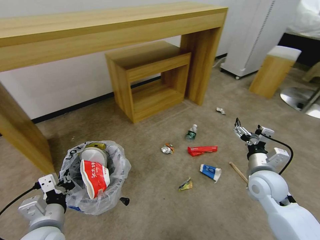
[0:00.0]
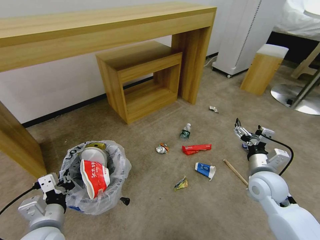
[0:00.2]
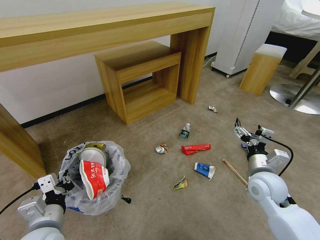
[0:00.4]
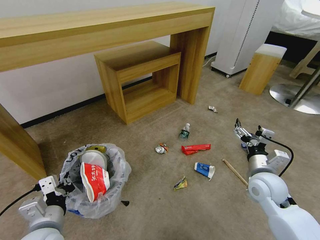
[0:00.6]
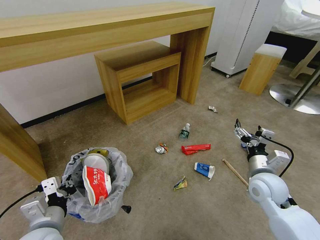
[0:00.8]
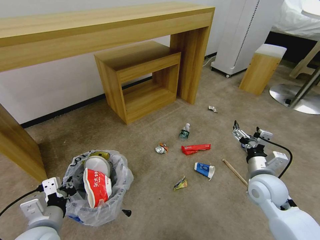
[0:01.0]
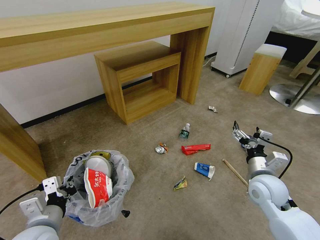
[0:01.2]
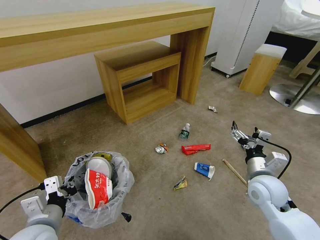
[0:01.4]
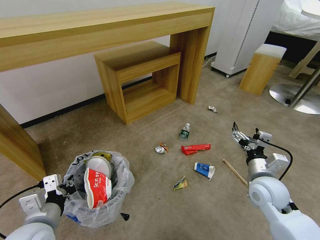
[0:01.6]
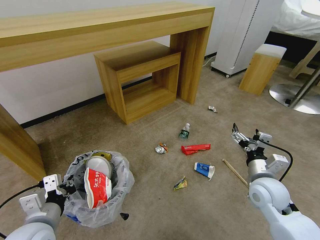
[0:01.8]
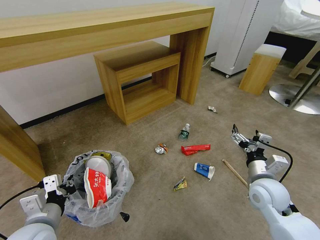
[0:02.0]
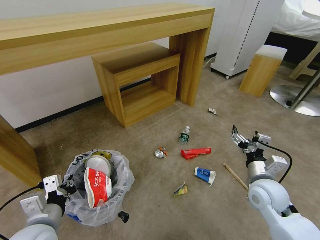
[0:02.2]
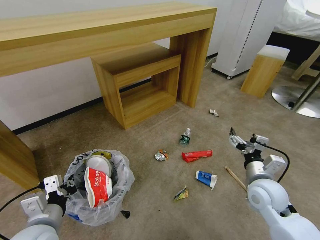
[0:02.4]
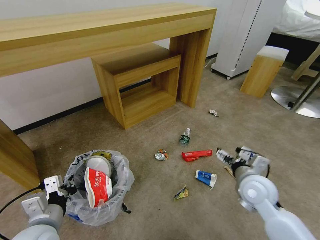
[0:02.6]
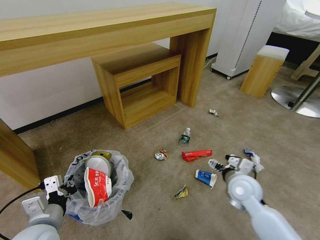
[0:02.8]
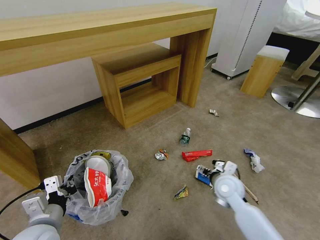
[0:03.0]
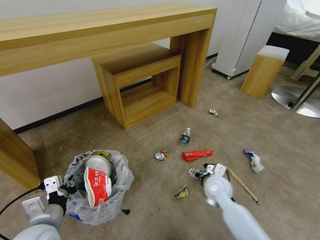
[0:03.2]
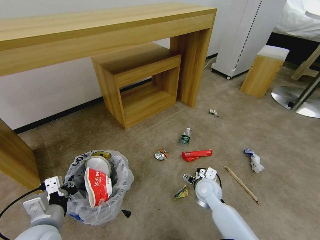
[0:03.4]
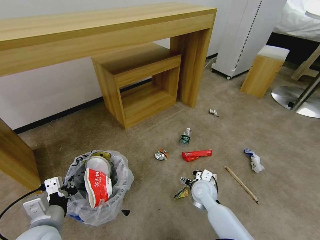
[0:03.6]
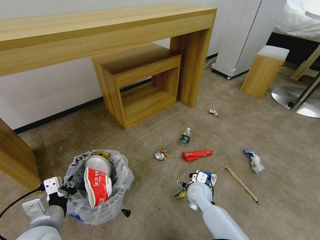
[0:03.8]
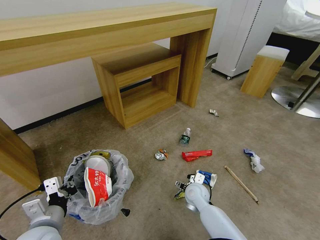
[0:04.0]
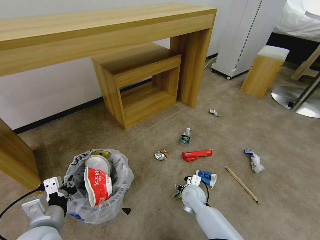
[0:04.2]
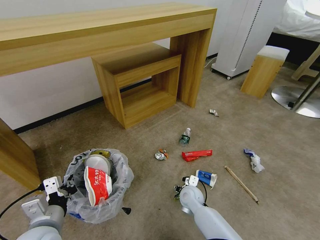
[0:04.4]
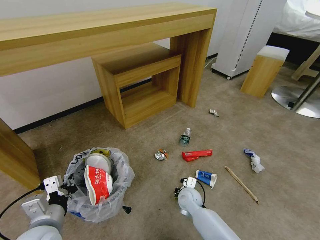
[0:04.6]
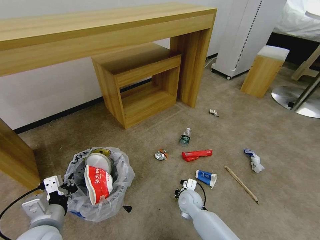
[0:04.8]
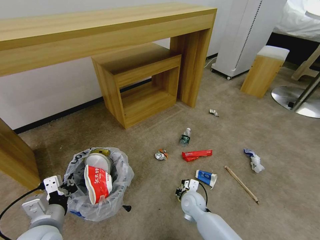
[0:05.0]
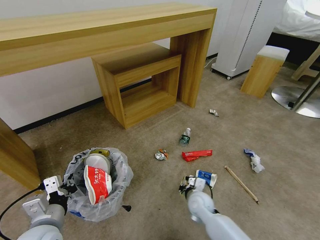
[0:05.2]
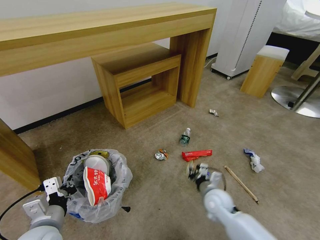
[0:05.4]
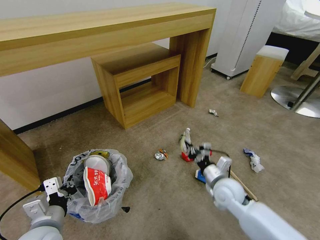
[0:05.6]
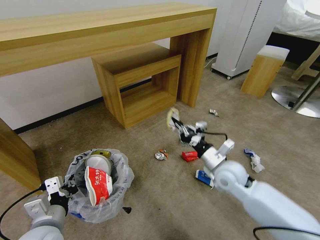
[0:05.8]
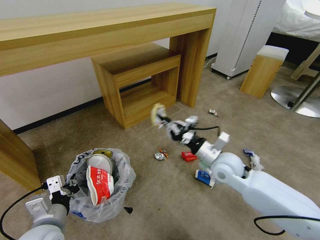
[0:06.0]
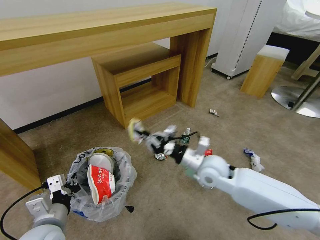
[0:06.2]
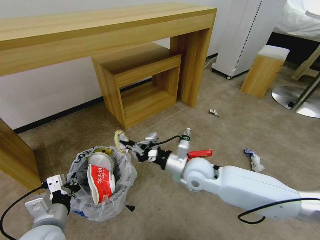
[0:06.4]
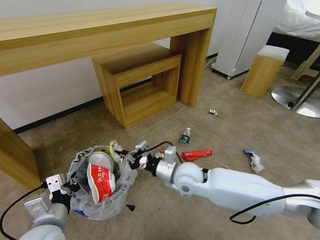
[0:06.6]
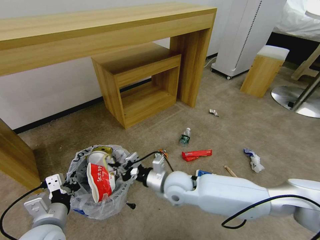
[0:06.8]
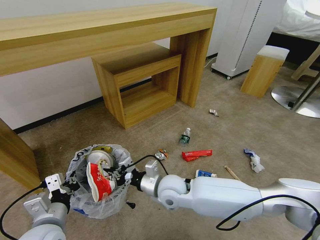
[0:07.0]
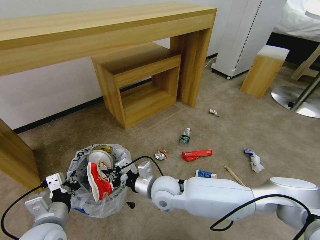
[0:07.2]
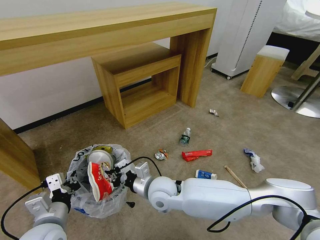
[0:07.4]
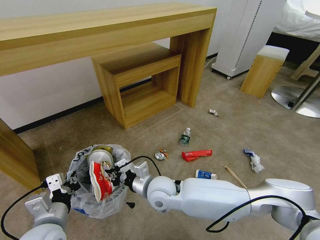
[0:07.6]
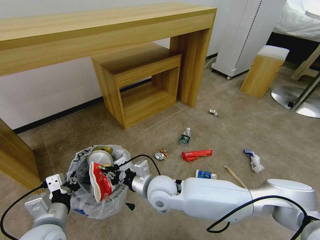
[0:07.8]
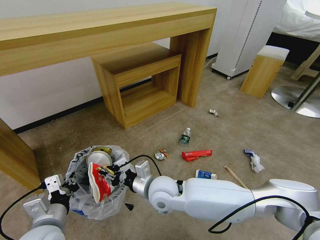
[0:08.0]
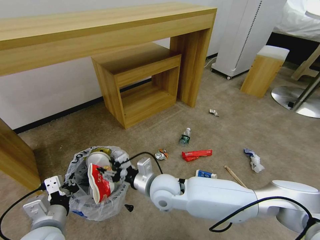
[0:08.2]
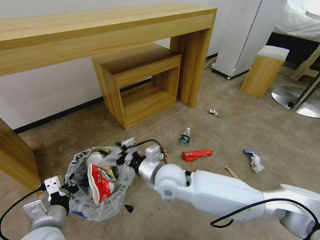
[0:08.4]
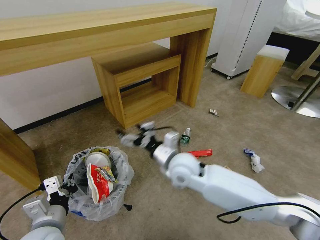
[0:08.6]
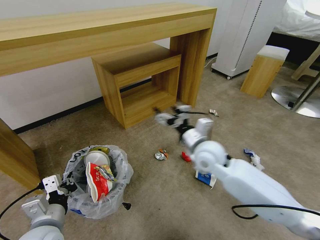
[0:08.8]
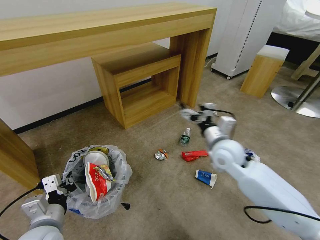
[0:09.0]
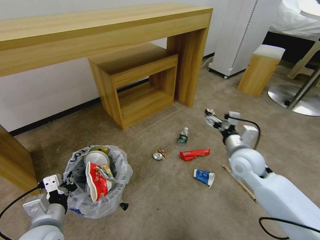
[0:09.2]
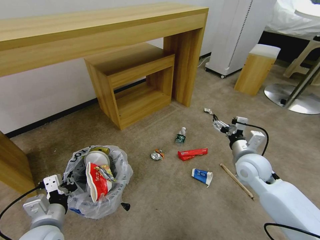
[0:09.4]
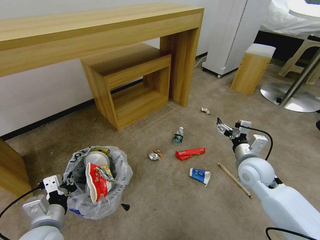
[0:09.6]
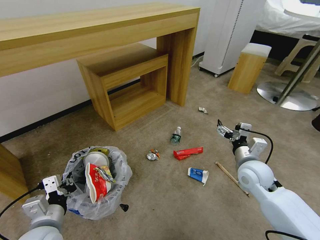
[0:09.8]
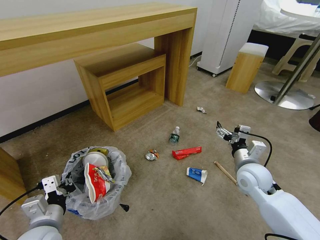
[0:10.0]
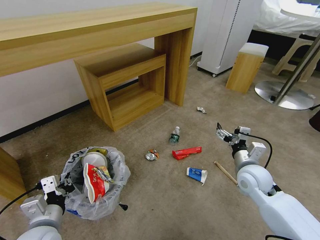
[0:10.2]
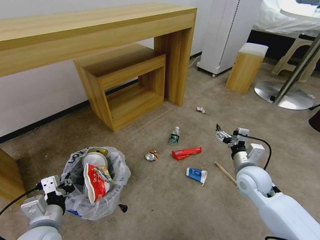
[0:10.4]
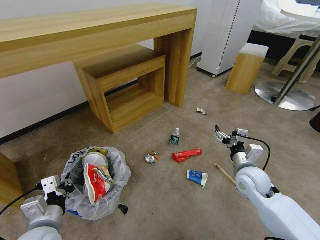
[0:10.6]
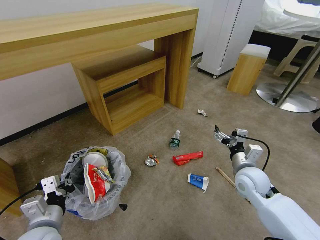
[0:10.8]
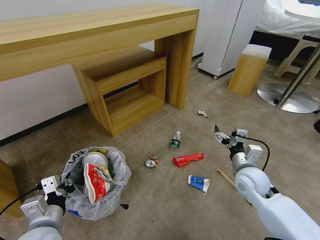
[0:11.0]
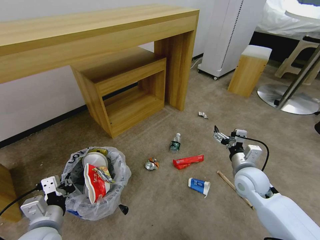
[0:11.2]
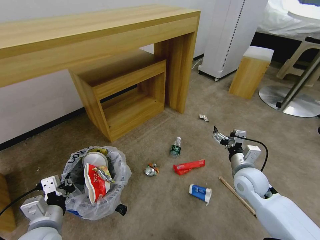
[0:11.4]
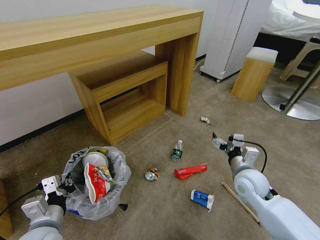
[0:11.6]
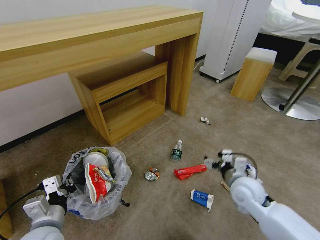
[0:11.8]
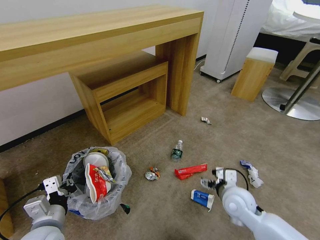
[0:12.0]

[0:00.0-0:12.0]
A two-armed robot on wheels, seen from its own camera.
Task of the whole recording: Pick up the trash bin and place the garbage on the floor into it.
0:01.6 to 0:03.0: The right gripper is displaced to the left and downward by some 10 cm.
0:03.0 to 0:04.4: The right gripper travels downward and to the left by approximately 15 cm, and closes.
0:04.4 to 0:06.0: The right gripper shifts roughly 20 cm upward, and closes up.
0:06.0 to 0:07.6: The right gripper shifts roughly 20 cm to the left.
0:07.6 to 0:09.0: The right gripper moves to the right and upward, some 25 cm, and opens.
0:09.0 to 0:10.4: The right gripper goes roughly 10 cm to the right, downward and backward.
0:10.4 to 0:12.0: The right gripper shifts approximately 5 cm to the left.

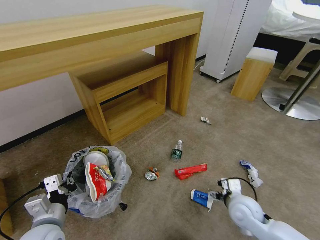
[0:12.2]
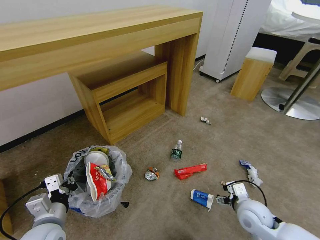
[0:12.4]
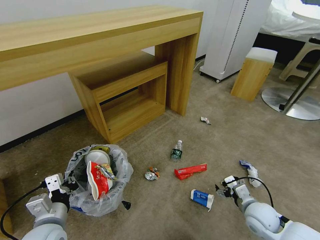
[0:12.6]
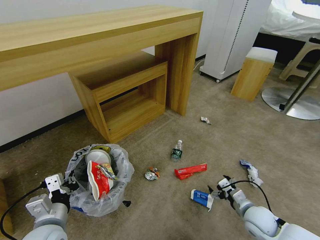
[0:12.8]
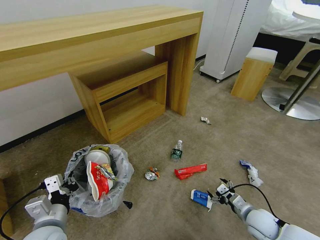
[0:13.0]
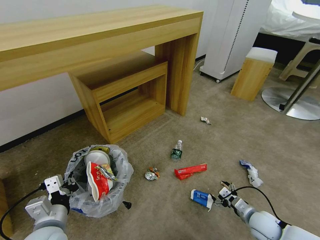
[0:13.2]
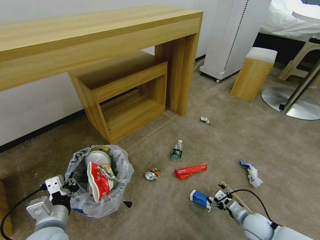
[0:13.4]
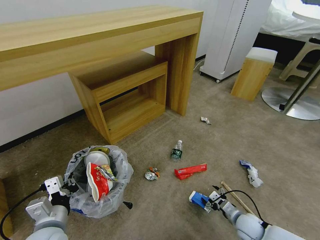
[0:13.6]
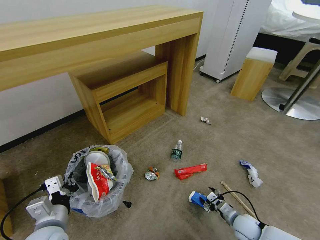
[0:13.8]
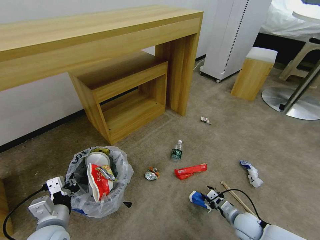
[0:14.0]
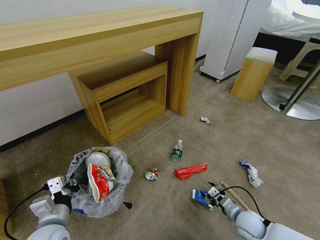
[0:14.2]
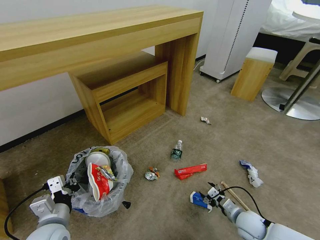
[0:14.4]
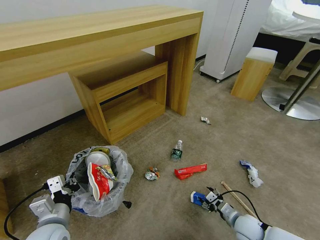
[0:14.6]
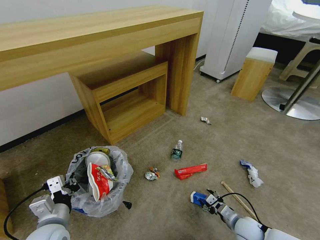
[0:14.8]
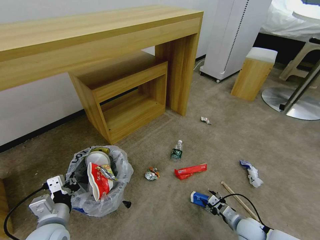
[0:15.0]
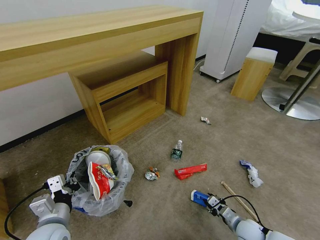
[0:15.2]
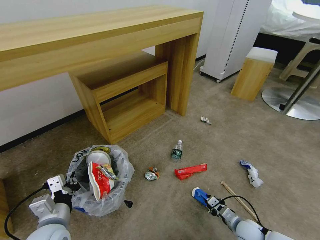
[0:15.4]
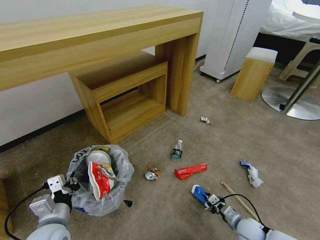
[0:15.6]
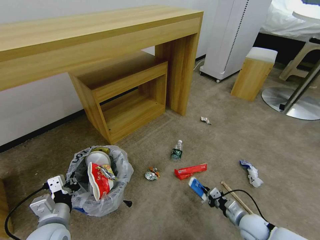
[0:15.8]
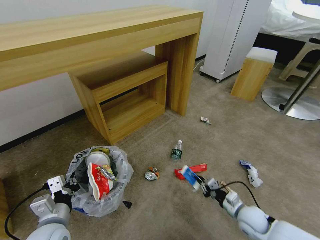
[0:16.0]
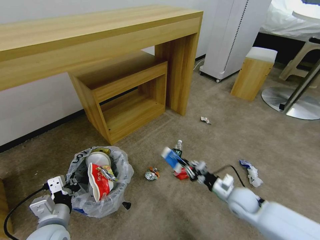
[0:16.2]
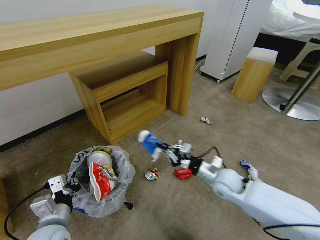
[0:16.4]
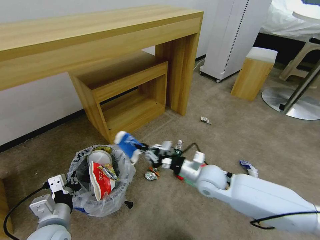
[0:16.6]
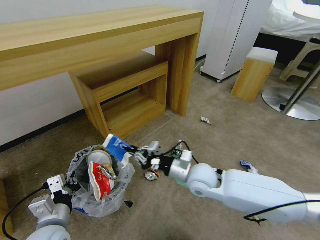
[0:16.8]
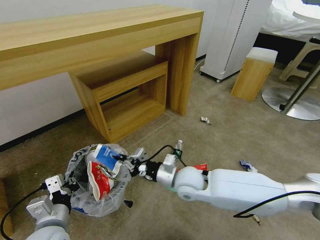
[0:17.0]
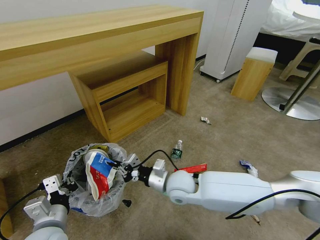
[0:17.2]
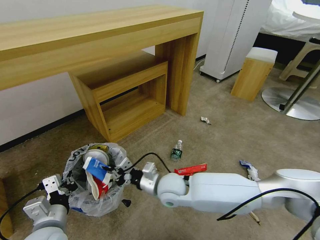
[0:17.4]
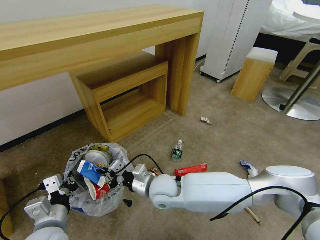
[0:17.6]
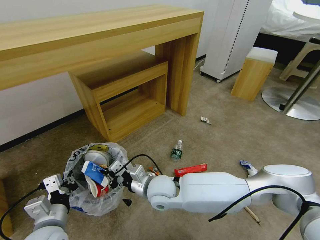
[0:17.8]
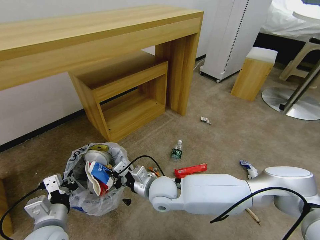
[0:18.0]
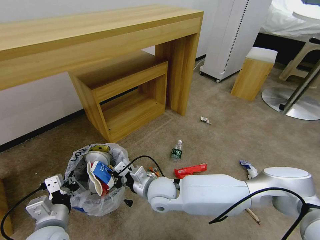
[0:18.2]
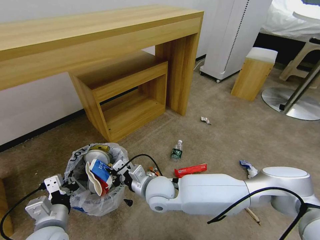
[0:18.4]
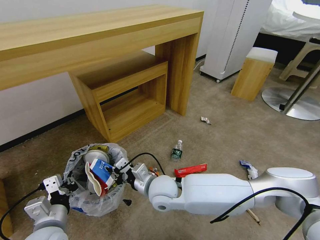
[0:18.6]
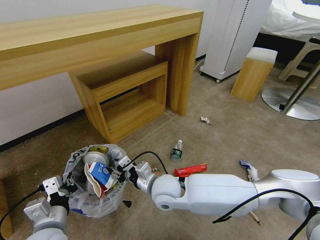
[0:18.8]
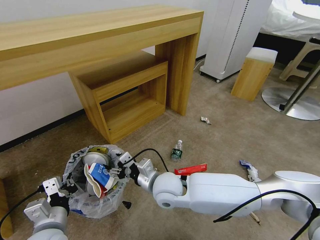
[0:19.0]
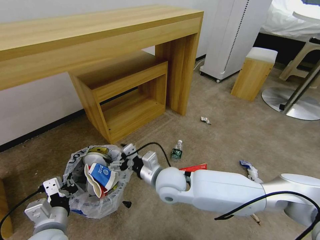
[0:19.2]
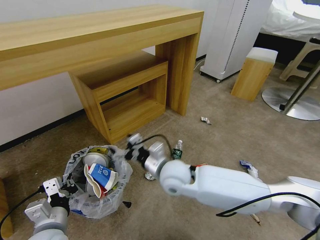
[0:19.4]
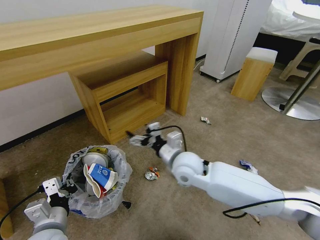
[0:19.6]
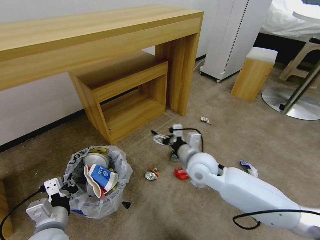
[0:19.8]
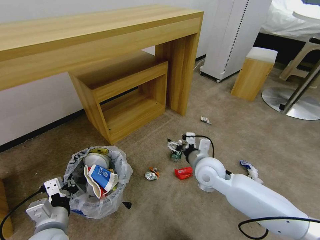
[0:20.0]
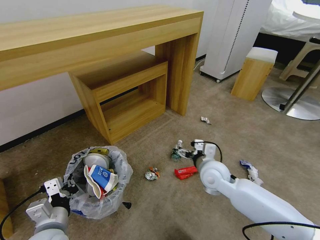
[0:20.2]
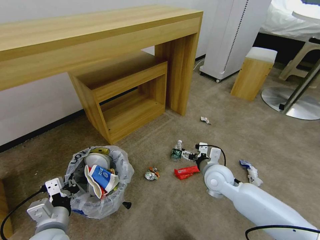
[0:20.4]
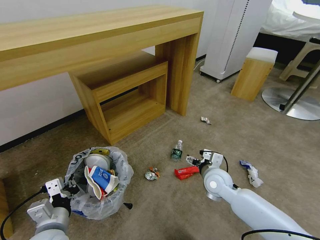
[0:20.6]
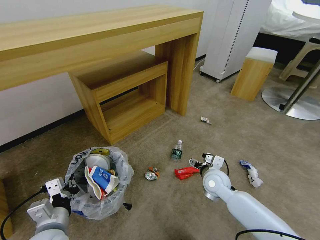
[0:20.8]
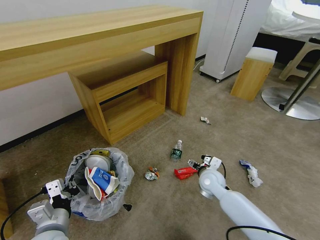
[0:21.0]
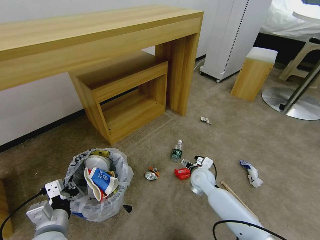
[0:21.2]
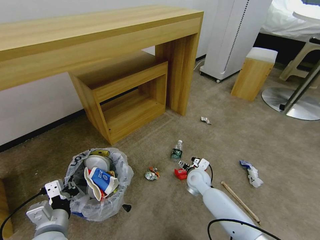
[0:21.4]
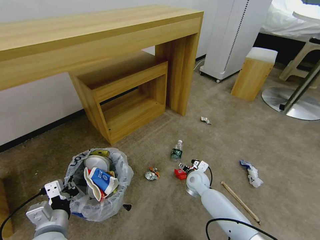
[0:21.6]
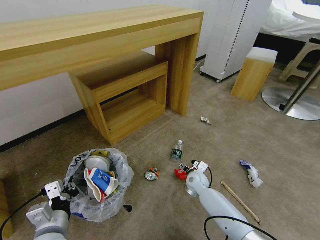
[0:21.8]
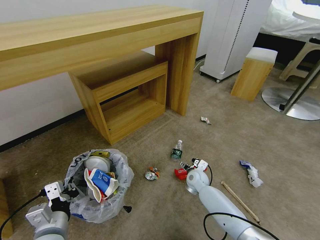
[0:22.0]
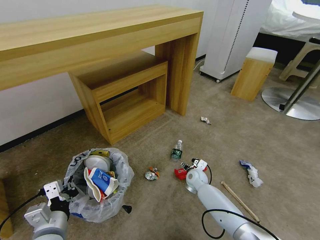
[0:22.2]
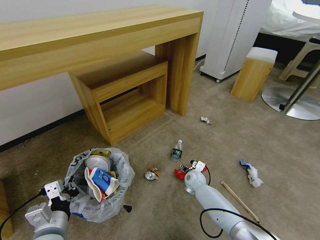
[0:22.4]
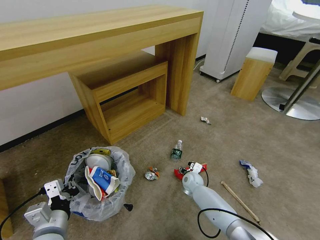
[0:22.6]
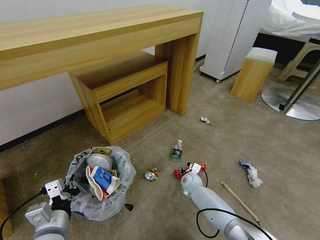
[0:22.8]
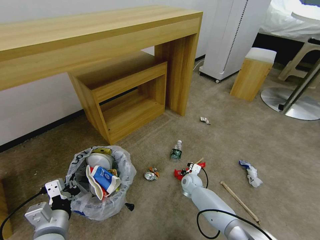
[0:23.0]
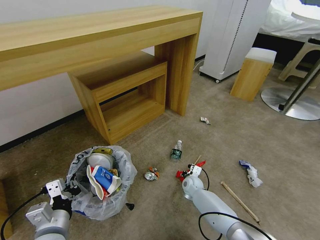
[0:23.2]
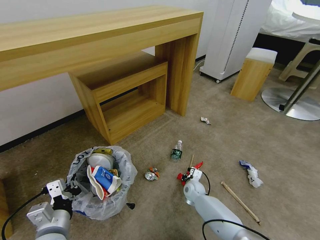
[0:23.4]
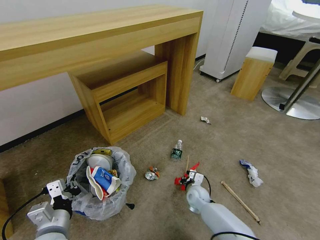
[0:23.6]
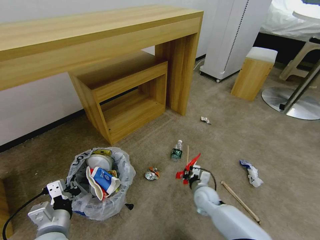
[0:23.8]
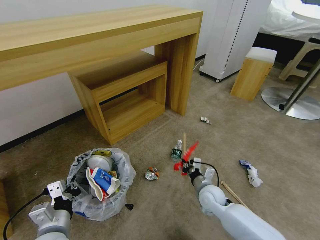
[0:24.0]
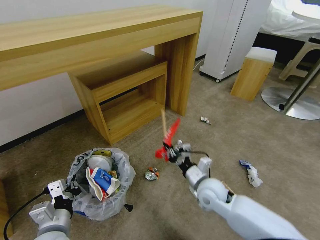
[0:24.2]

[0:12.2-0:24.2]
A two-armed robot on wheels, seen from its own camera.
Task of the whole recording: Pick up the trash bin and place the garbage on the floor into it.
0:12.2 to 0:13.8: The right gripper heads downward and to the right, covering some 15 cm.
0:13.8 to 0:15.2: The grippers move only a little.
0:15.2 to 0:16.6: The right gripper moves upward, to the left and forward, approximately 30 cm, and closes.
0:16.6 to 0:18.2: The right gripper travels to the left by about 15 cm.
0:18.2 to 0:19.8: The right gripper heads to the right, forward and upward, covering about 15 cm, and opens up.
0:19.8 to 0:21.2: The right gripper moves downward, about 15 cm.
0:21.2 to 0:22.6: The right gripper heads downward, covering some 10 cm.
0:22.6 to 0:24.2: The right gripper heads upward and backward, covering roughly 20 cm, and closes.
